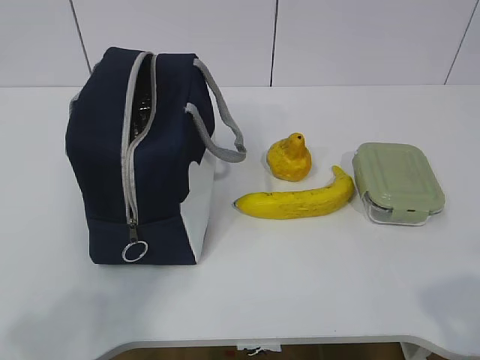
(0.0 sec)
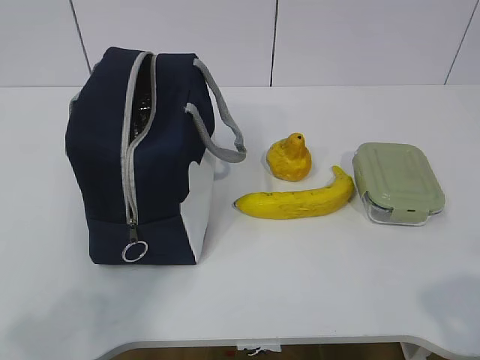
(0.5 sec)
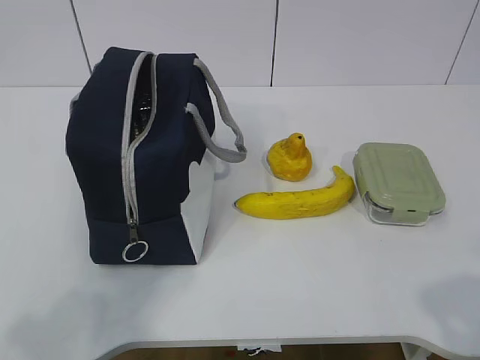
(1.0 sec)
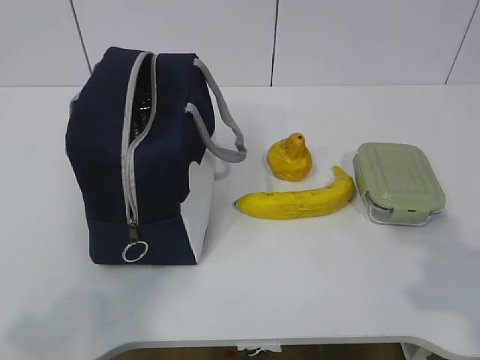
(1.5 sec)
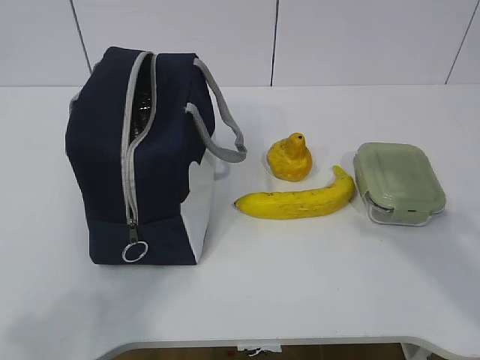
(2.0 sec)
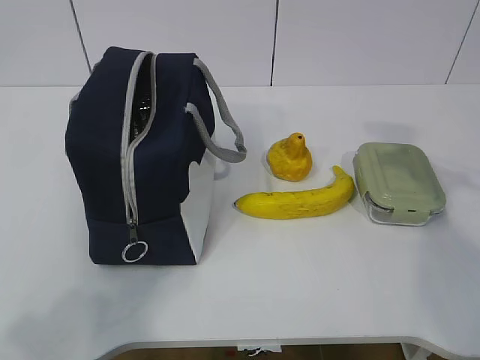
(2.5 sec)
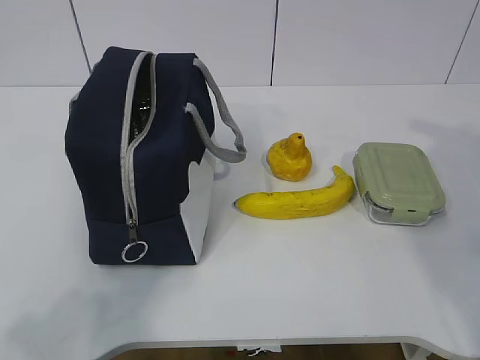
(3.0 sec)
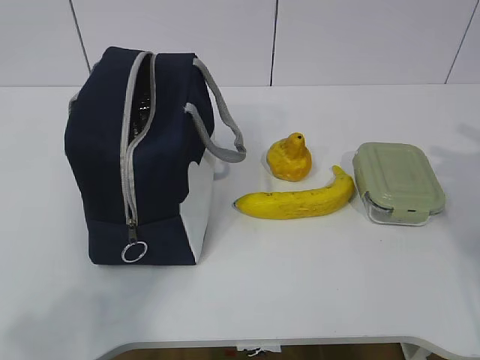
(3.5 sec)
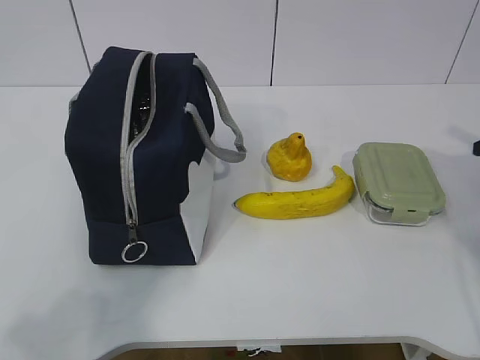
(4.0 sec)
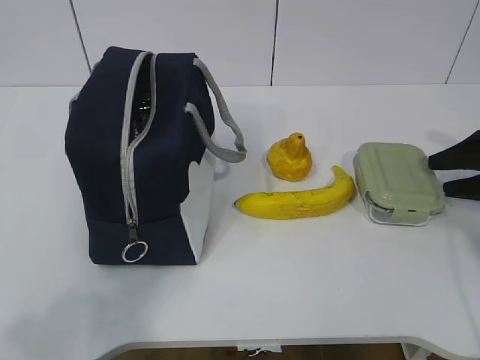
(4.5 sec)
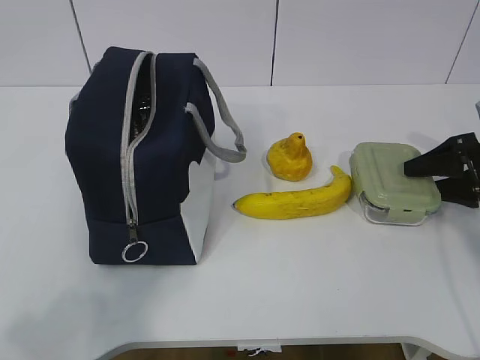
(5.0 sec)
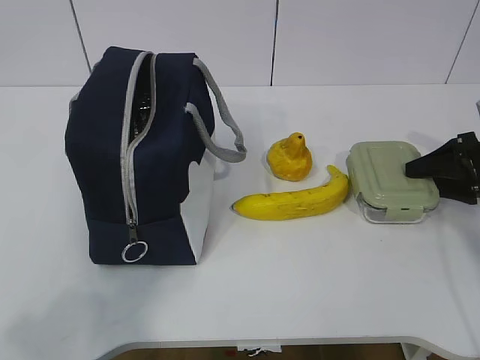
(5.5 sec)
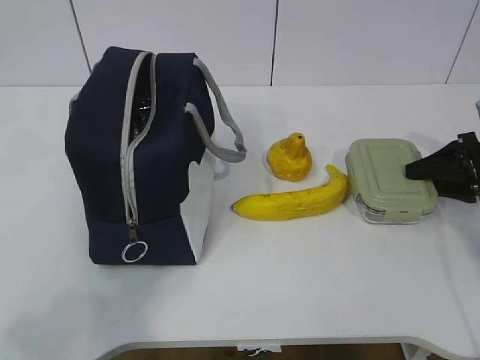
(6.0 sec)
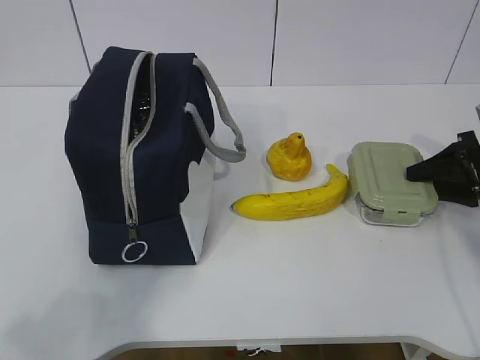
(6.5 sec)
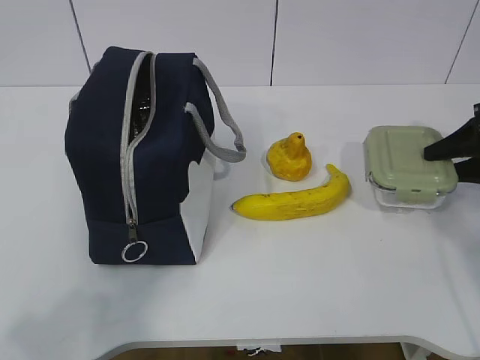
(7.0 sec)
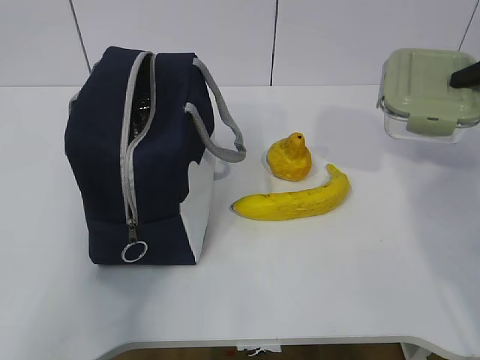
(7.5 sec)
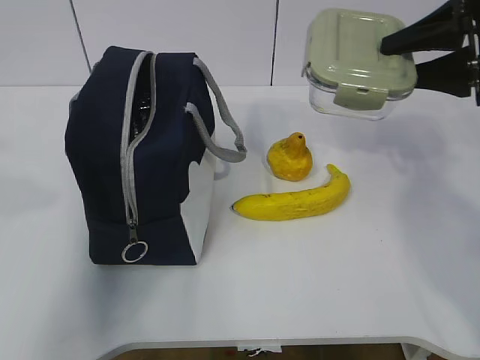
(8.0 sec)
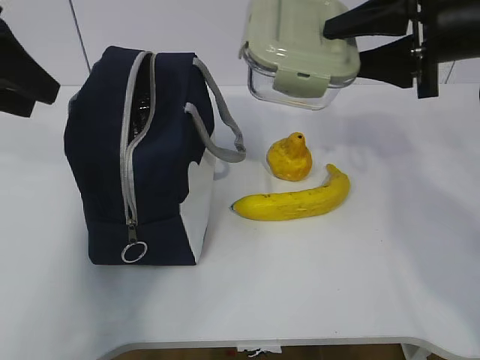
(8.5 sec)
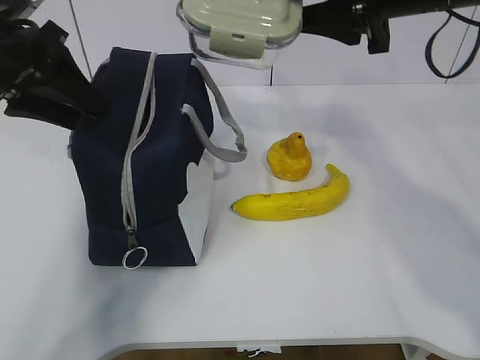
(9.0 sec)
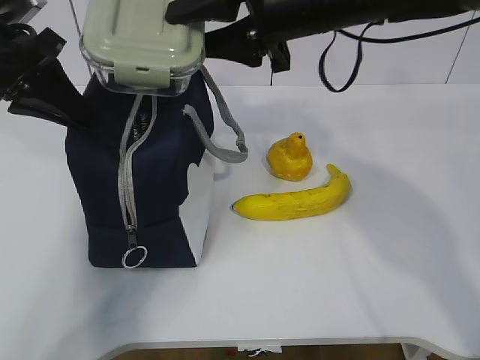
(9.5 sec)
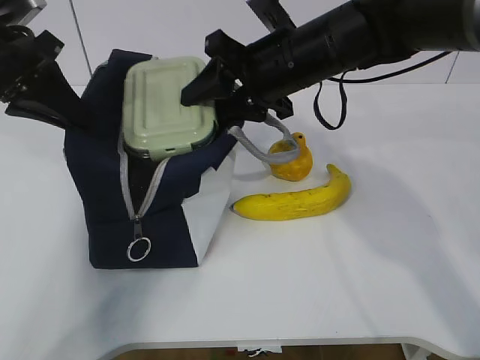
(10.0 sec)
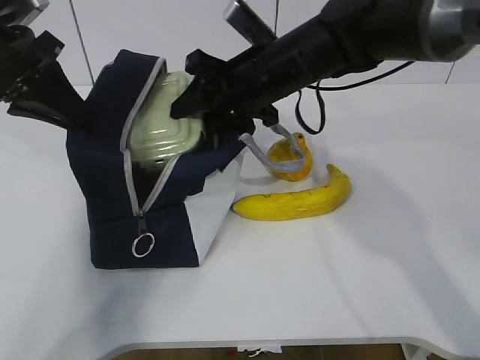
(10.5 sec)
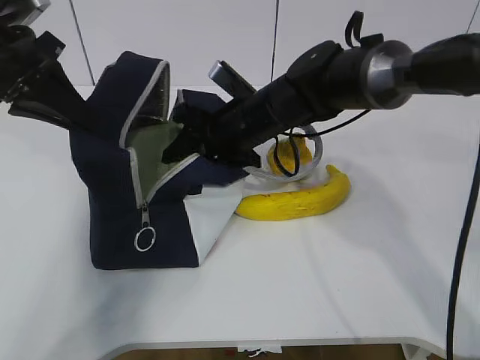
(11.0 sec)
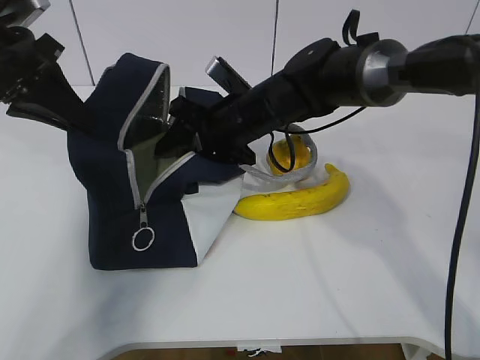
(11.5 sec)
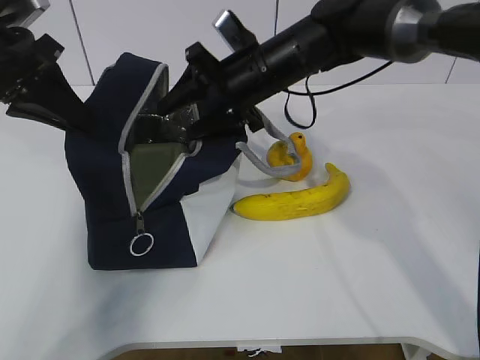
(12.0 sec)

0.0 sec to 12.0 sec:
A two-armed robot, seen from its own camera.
Step, 0.0 sec to 5.0 sec: Grab the lunch box with your right hand.
Step, 6.0 sec to 7.5 sec: Grab the lunch bag with your left hand.
Step, 8.5 sec to 9.5 sec: Place it into the bag with your right hand.
2.0 sec to 4.0 sec: The right gripper goes approximately 30 cm forward, to the right and downward, and opens its fingers.
4.0 sec to 6.0 sec: The right gripper travels downward and to the left by roughly 10 cm.
6.0 sec to 8.0 sec: The left gripper is displaced forward by approximately 15 cm. The right gripper travels upward and to the left by about 20 cm.
8.0 sec to 10.0 sec: The right gripper travels to the left by approximately 20 cm. The left gripper goes about 20 cm forward, and closes its fingers.

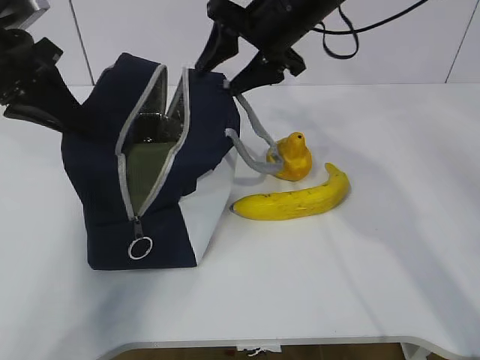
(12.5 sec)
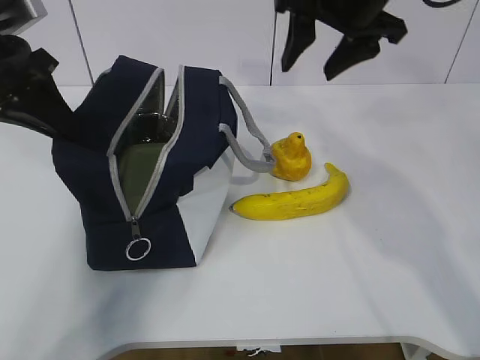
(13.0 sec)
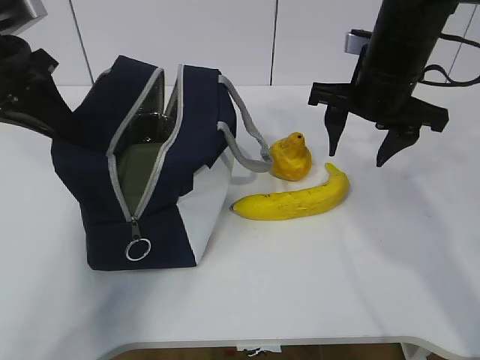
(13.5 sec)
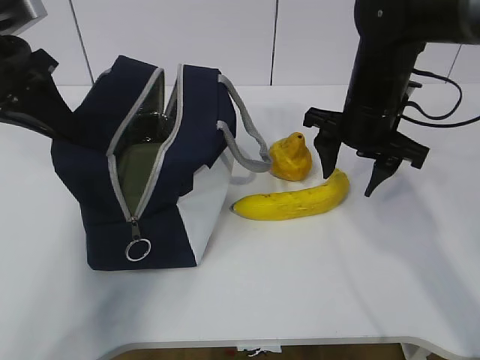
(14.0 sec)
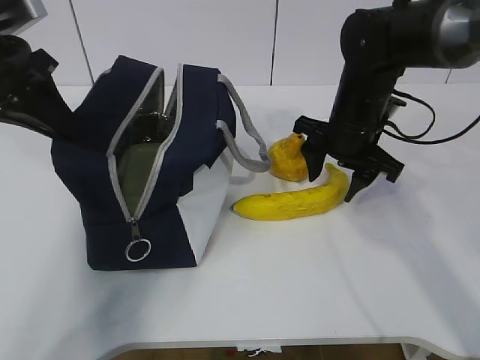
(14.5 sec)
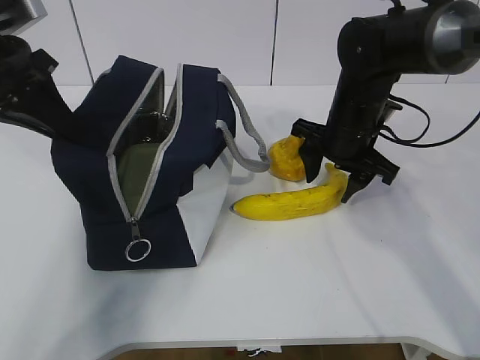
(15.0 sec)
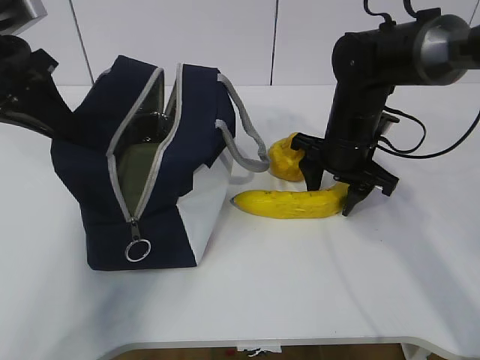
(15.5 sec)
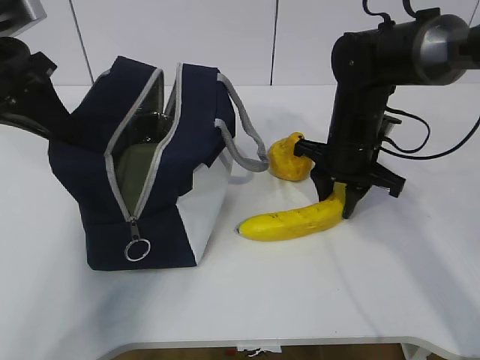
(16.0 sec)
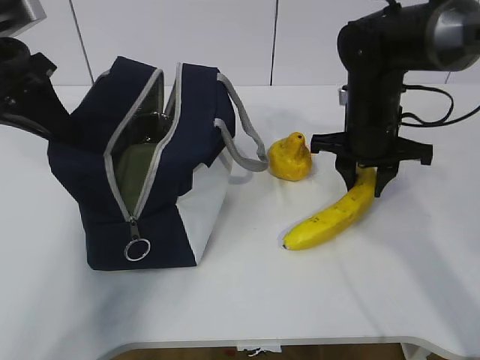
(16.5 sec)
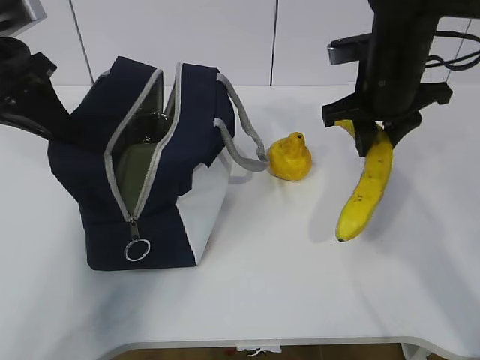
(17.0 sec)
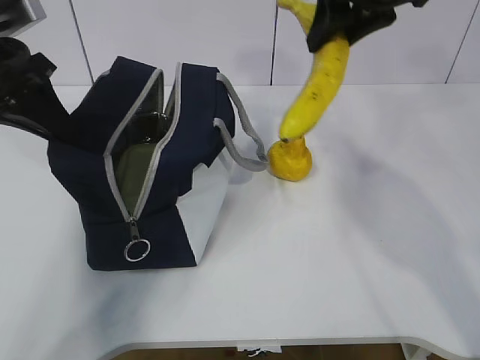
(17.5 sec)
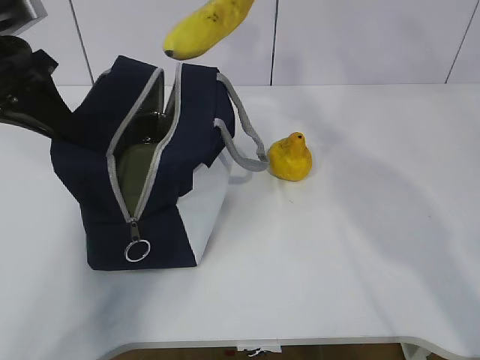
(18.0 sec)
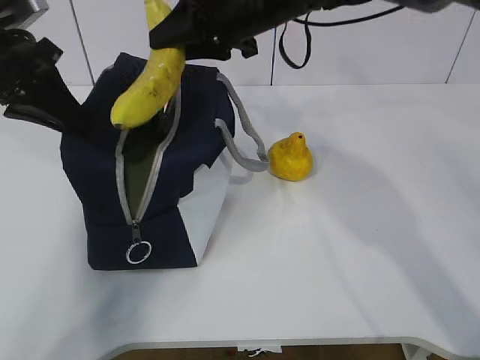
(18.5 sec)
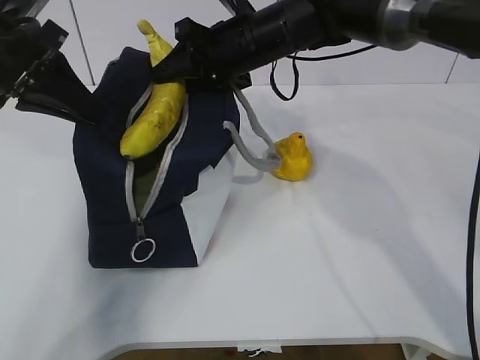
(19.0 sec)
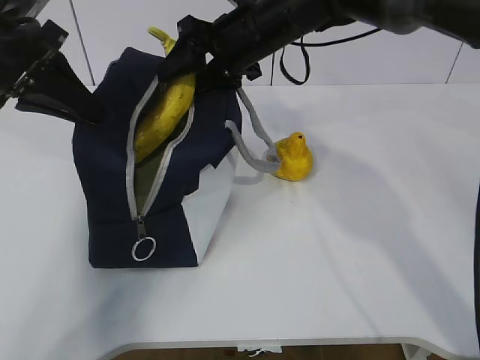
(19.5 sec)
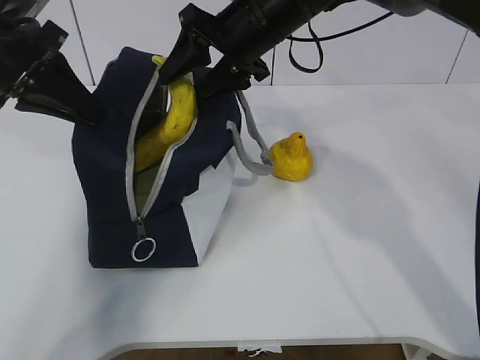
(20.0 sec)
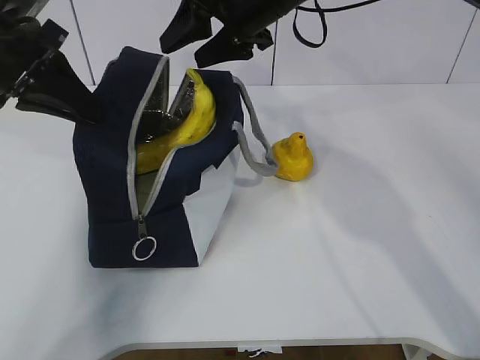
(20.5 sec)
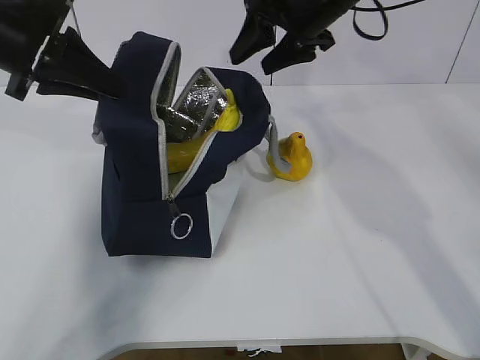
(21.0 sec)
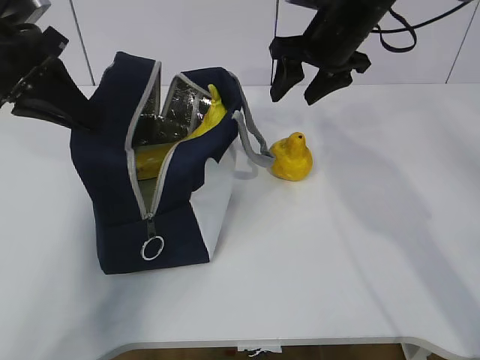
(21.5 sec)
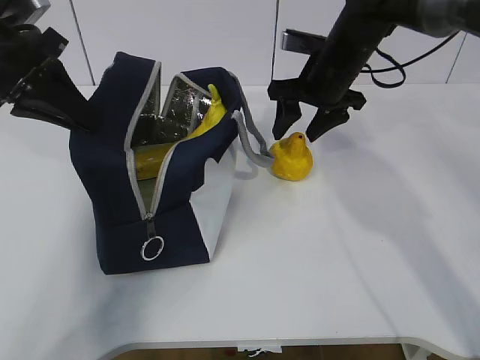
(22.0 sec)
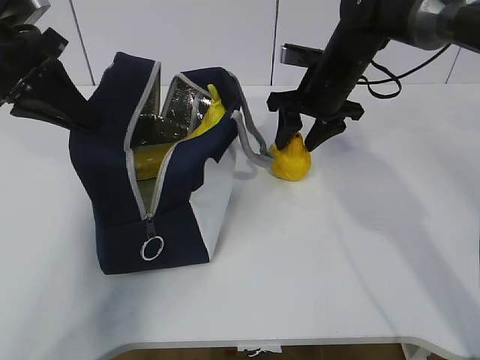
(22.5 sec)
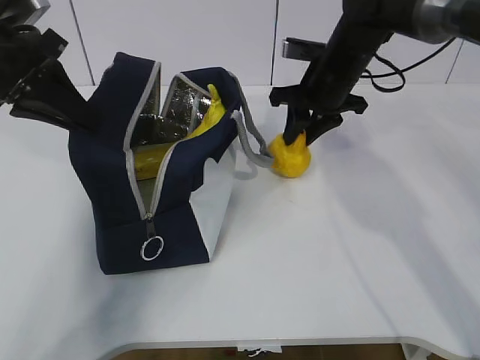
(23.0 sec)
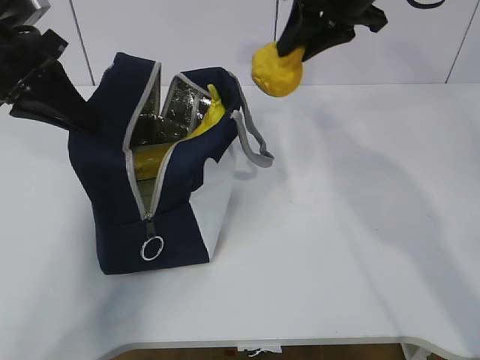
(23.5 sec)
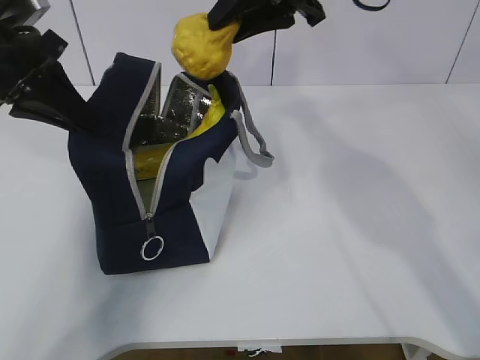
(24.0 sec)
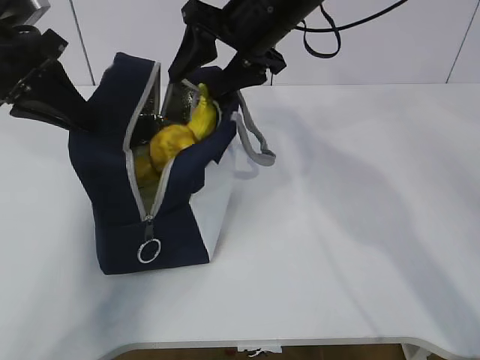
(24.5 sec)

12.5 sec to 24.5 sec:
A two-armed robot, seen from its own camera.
Step, 13.5 sec to 17.0 sec: Place it into the bag with your right hand.
Step, 17.5 sec to 19.0 sec: Grab the pear with your right hand.
Step, 21.5 sec to 22.5 sec: Move the lunch bag to the right.
12.5 sec to 14.5 sec: The right gripper heads downward and to the right, covering about 15 cm.
14.5 sec to 16.5 sec: The right gripper closes.
16.5 sec to 18.5 sec: The right gripper shifts about 20 cm upward and to the left.
18.5 sec to 20.5 sec: The right gripper opens.
20.5 sec to 22.5 sec: The right gripper moves downward and to the right, approximately 15 cm.
22.5 sec to 24.5 sec: The right gripper heads upward and to the left, covering roughly 15 cm, and closes, then opens again.

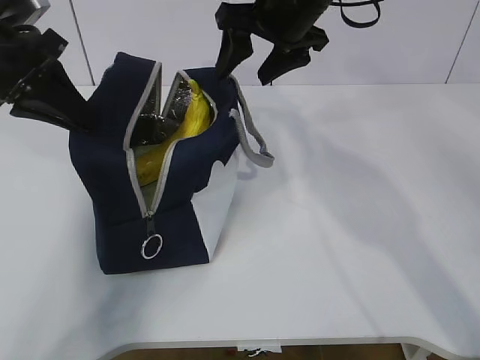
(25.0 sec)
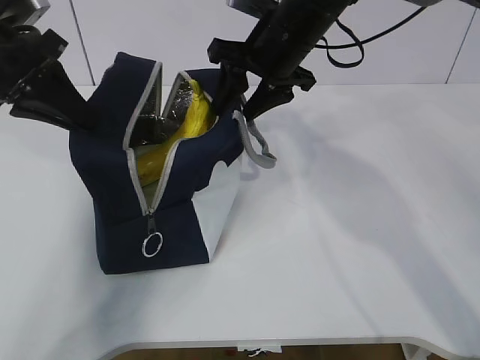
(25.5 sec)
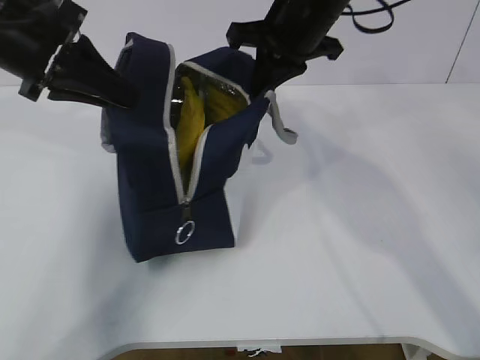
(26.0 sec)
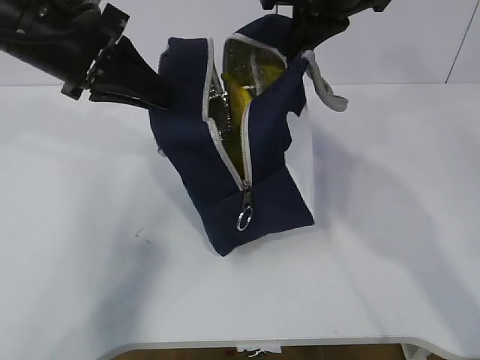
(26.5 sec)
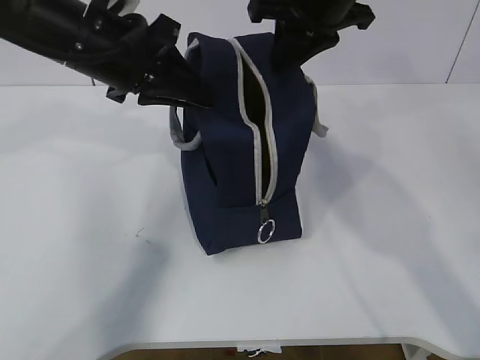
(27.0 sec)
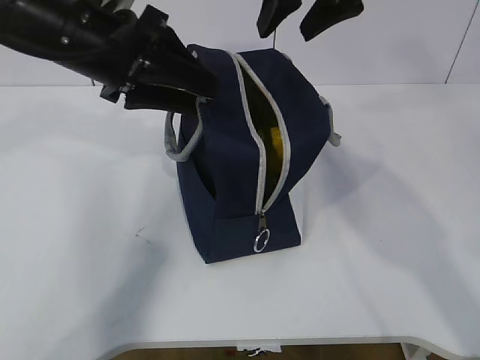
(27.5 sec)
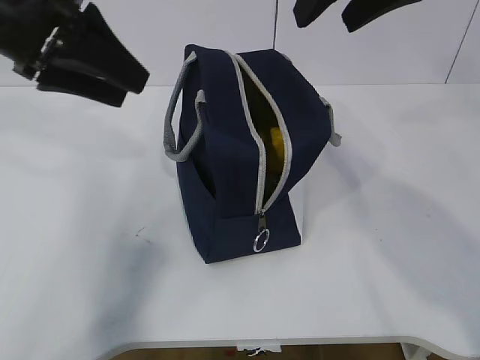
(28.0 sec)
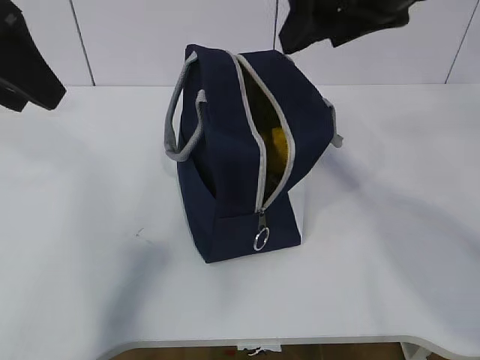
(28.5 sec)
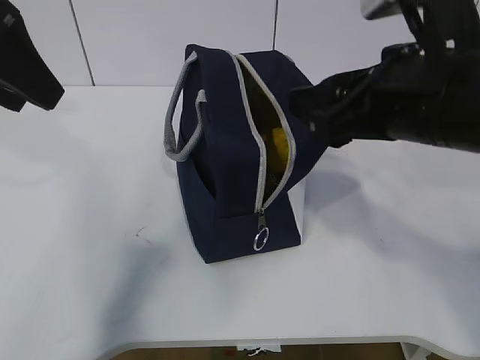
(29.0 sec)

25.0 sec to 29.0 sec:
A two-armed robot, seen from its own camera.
25.0 sec to 27.0 sec: The left gripper travels to the right by about 10 cm. The right gripper closes its fingers.
27.0 sec to 29.0 sec: The right gripper heads backward, covering about 15 cm, and opens up, while the left gripper moves to the left, upward and backward, approximately 15 cm, and opens its fingers.
